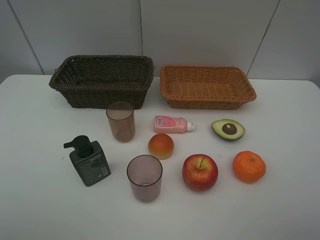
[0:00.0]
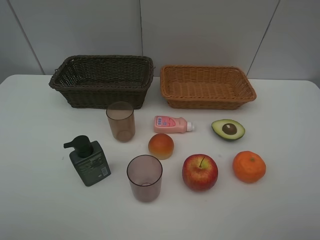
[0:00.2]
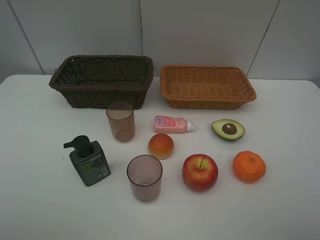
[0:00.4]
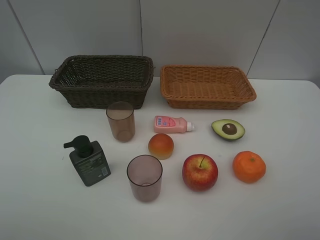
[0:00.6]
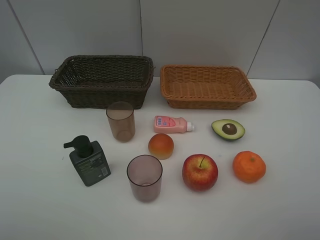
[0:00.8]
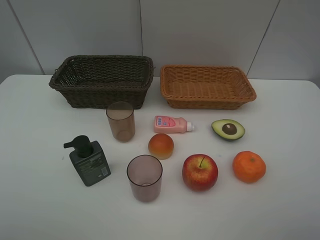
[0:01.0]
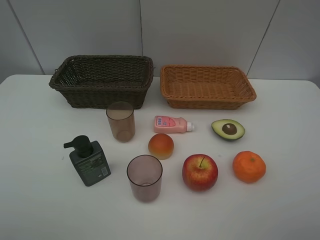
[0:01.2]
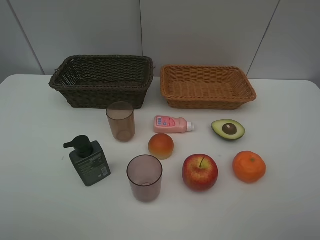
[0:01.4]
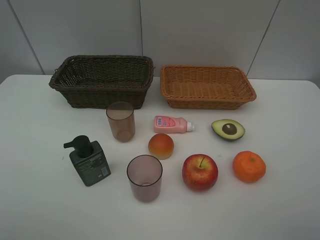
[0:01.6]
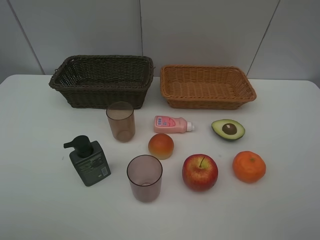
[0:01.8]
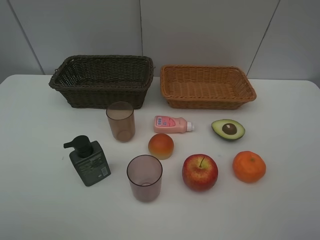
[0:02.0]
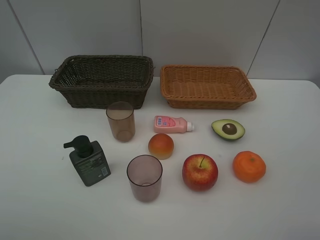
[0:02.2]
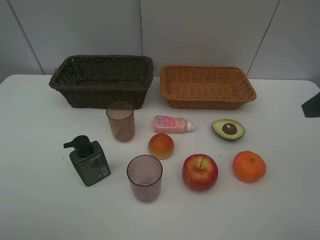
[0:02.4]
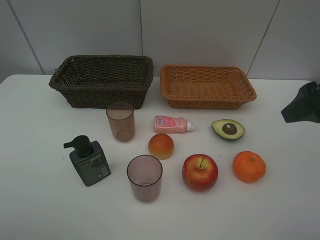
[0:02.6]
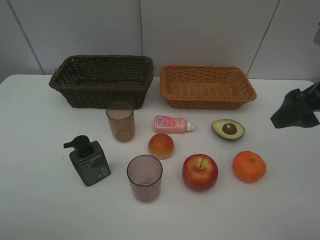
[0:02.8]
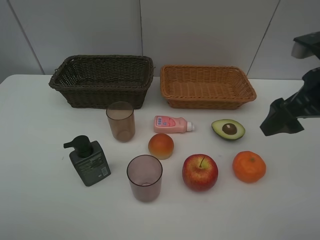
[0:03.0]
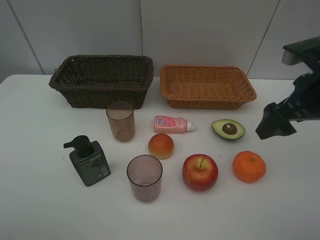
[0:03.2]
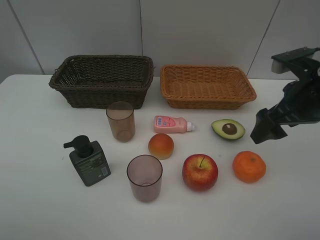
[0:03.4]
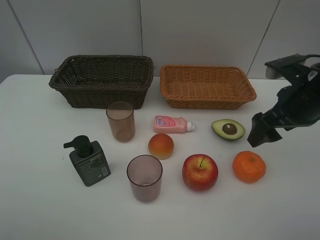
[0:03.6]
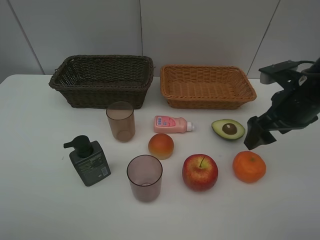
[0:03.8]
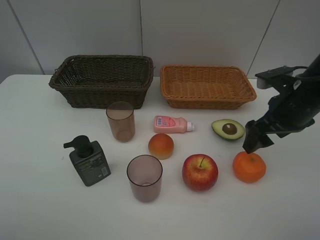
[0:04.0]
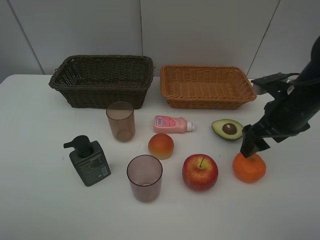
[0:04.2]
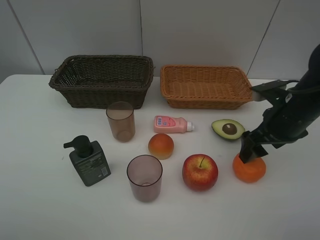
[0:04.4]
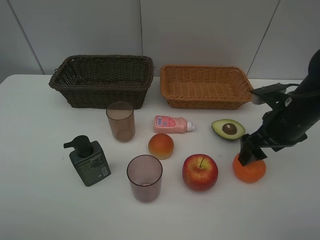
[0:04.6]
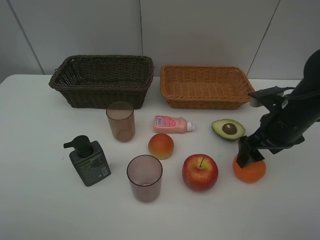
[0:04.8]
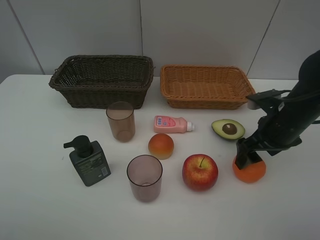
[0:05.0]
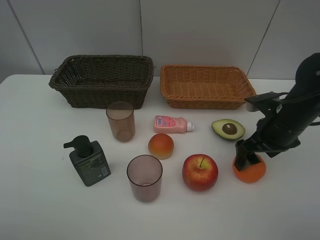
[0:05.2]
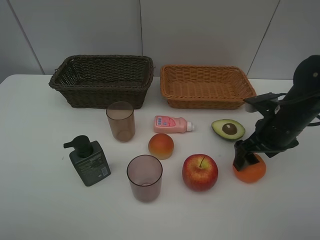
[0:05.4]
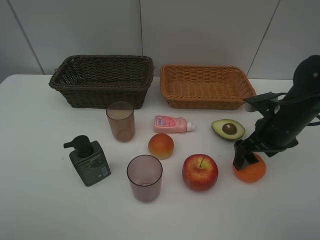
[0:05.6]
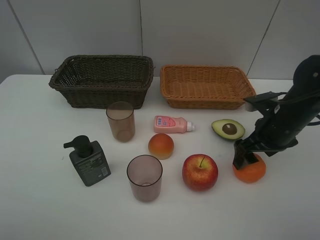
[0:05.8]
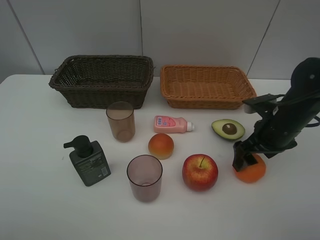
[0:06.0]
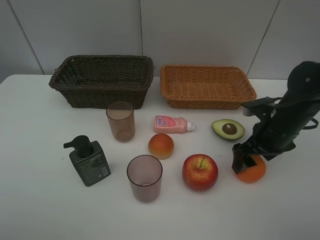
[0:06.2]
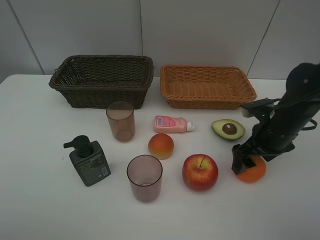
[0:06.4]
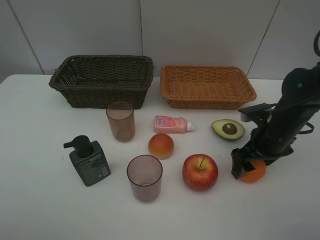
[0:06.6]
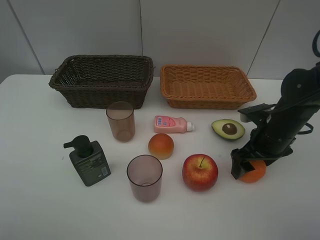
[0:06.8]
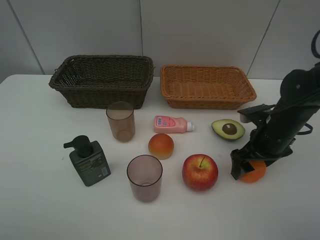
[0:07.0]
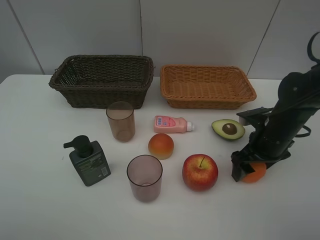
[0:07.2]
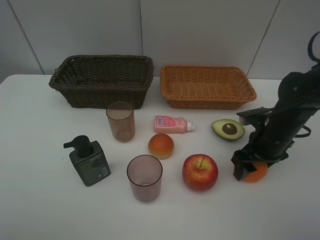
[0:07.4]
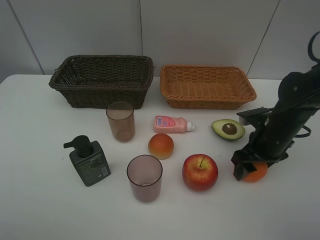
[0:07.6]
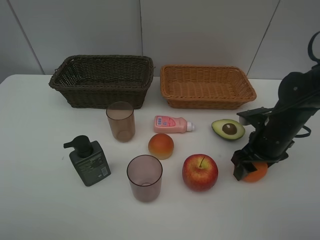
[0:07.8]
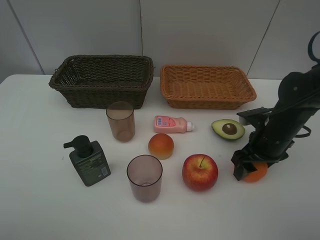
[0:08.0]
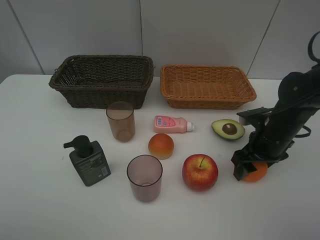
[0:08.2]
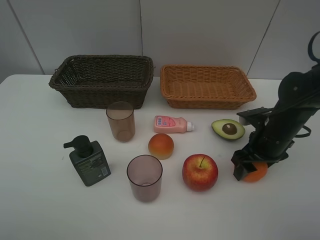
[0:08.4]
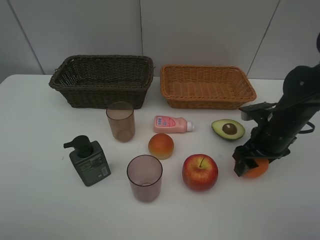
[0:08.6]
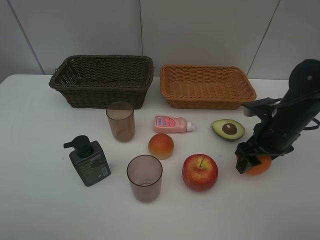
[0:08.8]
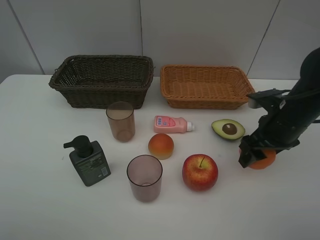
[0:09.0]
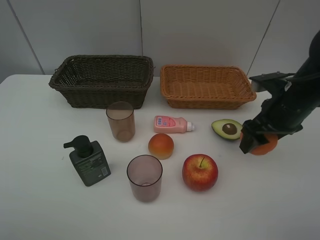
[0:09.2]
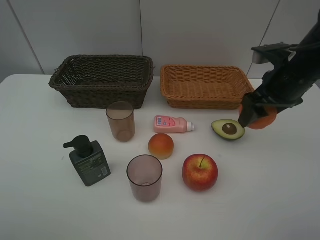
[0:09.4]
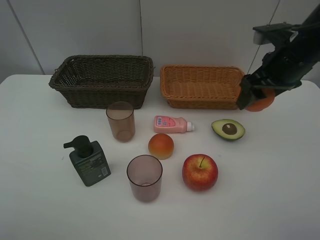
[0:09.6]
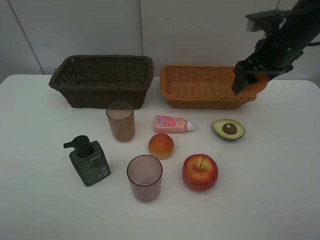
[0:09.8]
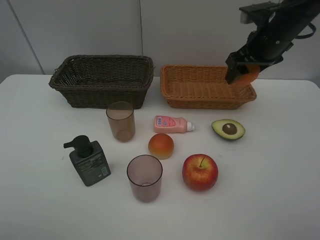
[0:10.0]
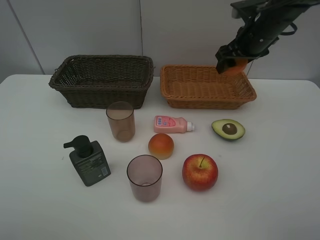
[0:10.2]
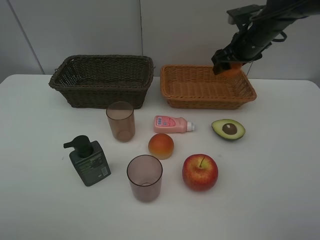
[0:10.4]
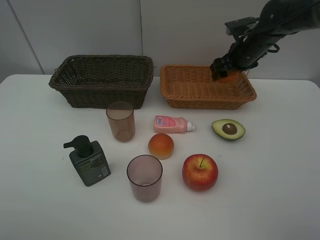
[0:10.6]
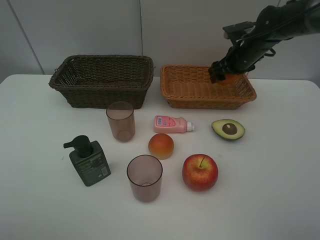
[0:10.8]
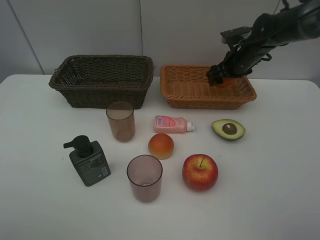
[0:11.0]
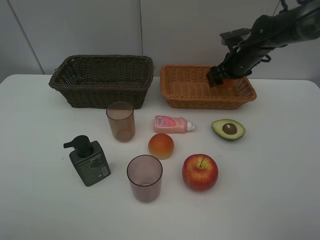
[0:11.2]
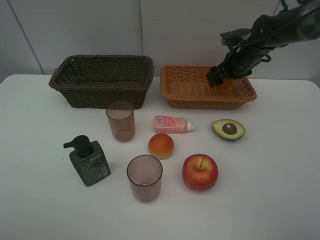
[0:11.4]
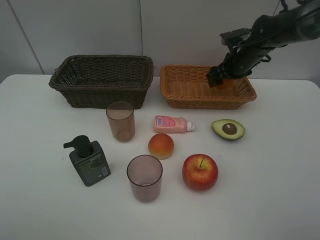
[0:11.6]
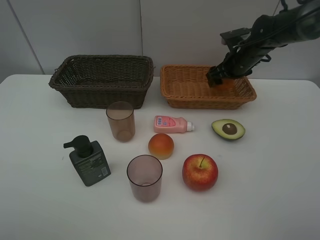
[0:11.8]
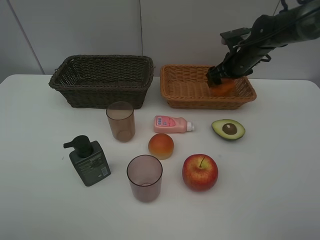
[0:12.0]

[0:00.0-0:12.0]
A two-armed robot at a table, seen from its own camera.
Task of the whole recording: Place multiple objects separately in different baskets.
Step, 0:00.0 to 0:09.0: Pick up the orange with right gripper.
0:01.6 to 0:03.0: The right gripper shifts some 20 cm forward.
0:03.0 to 0:04.4: The right gripper moves downward, roughly 10 cm.
0:04.4 to 0:06.0: The grippers make only small movements.
0:06.0 to 0:07.6: The right gripper closes.
0:07.6 to 0:09.0: The grippers move only a little.
0:09.0 to 0:10.4: The right gripper travels forward and upward by about 20 cm.
0:10.4 to 0:12.0: The right gripper travels downward by about 5 cm.

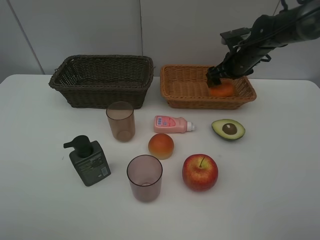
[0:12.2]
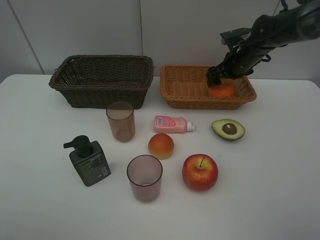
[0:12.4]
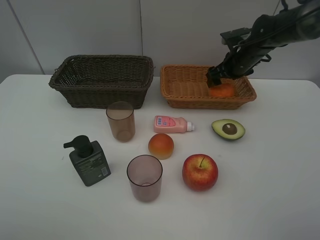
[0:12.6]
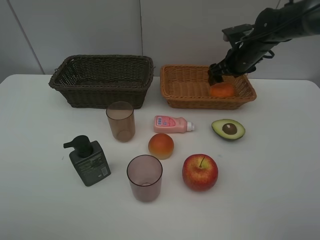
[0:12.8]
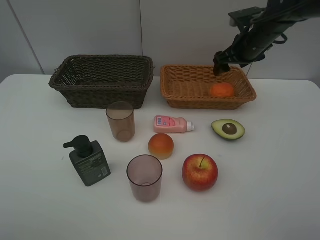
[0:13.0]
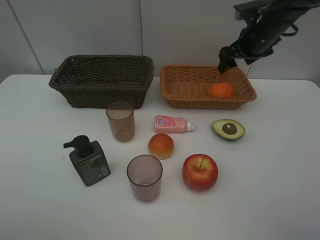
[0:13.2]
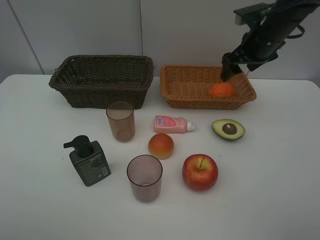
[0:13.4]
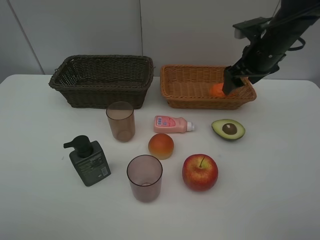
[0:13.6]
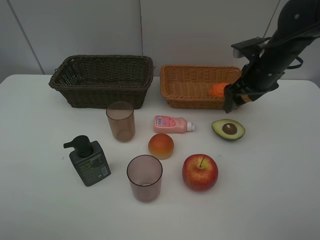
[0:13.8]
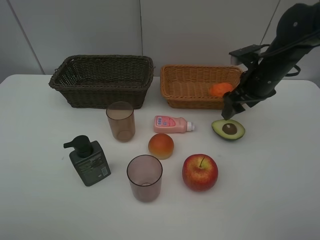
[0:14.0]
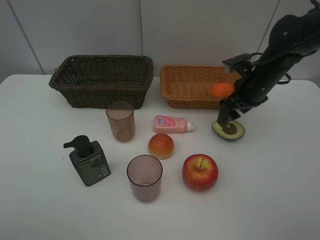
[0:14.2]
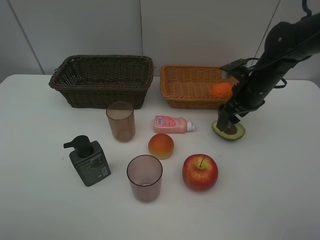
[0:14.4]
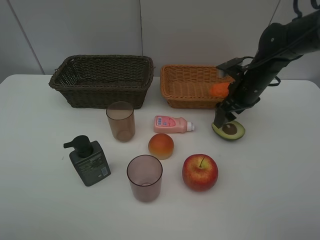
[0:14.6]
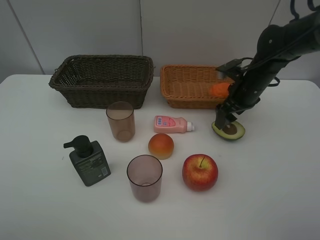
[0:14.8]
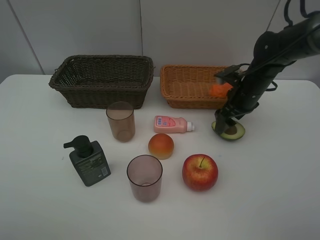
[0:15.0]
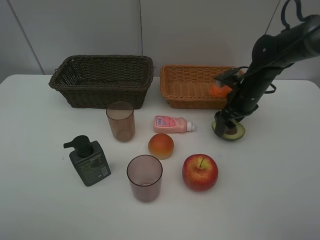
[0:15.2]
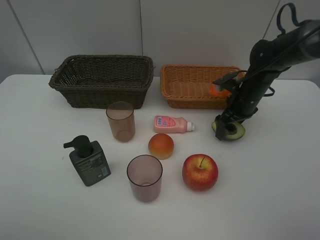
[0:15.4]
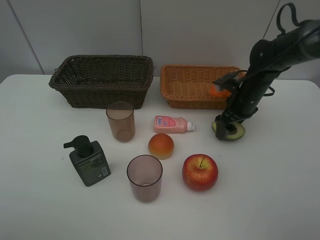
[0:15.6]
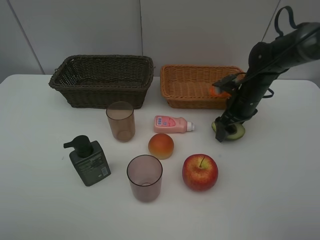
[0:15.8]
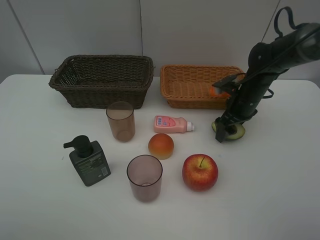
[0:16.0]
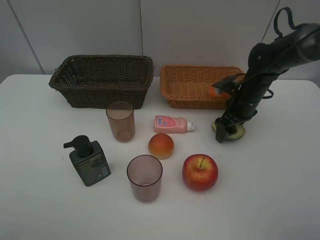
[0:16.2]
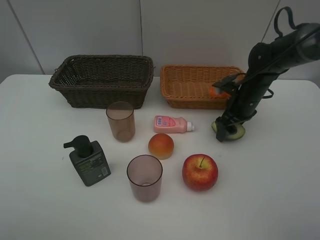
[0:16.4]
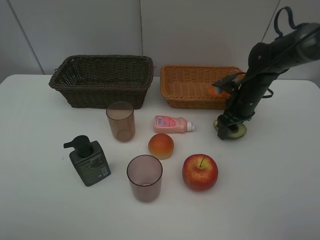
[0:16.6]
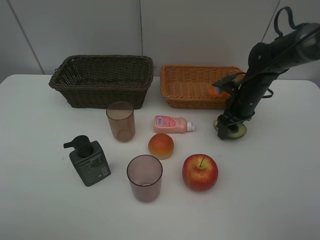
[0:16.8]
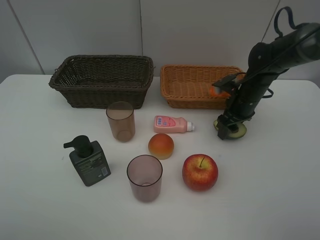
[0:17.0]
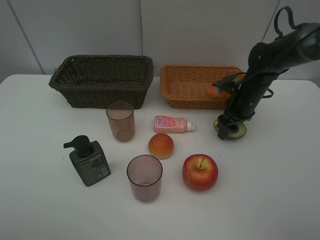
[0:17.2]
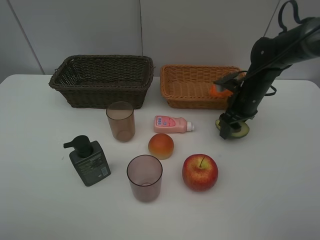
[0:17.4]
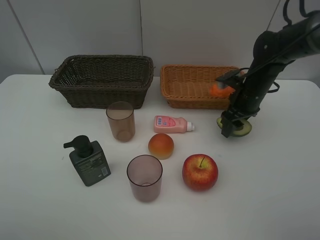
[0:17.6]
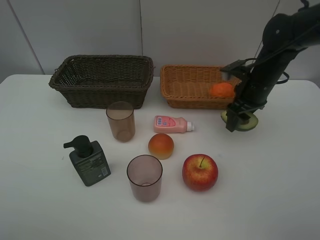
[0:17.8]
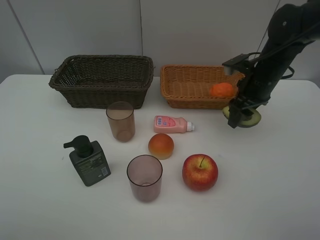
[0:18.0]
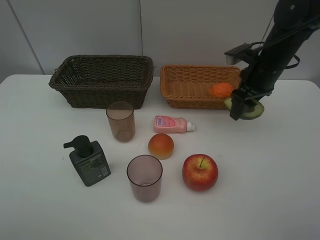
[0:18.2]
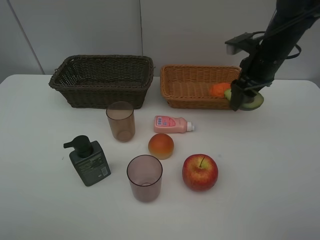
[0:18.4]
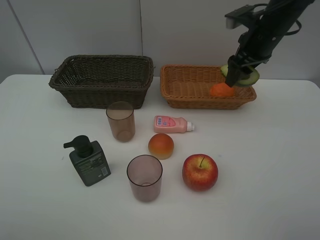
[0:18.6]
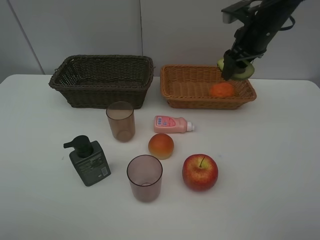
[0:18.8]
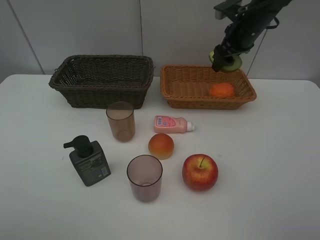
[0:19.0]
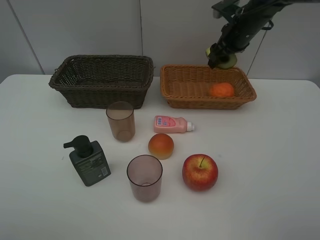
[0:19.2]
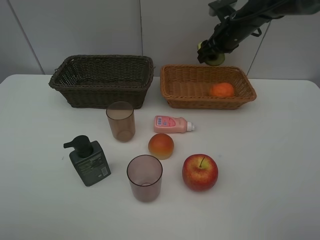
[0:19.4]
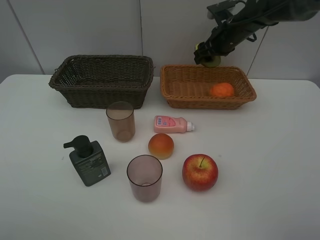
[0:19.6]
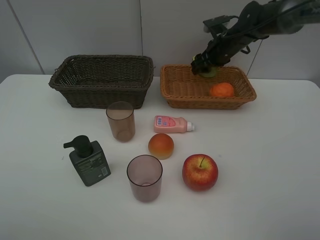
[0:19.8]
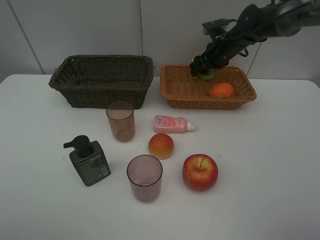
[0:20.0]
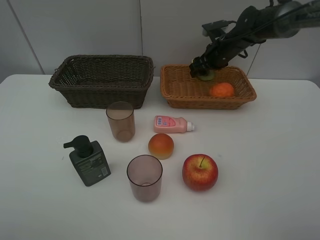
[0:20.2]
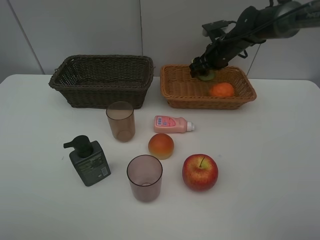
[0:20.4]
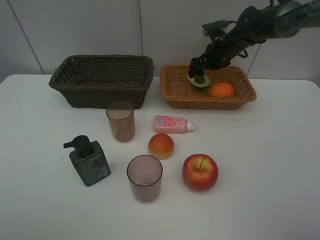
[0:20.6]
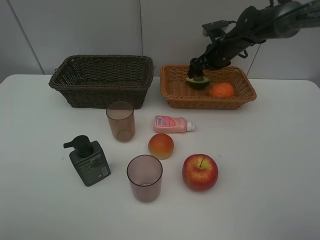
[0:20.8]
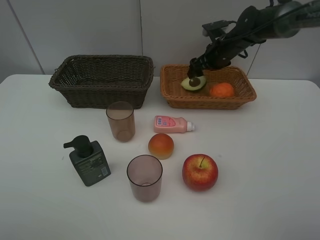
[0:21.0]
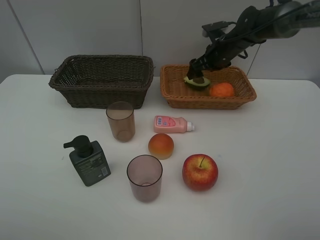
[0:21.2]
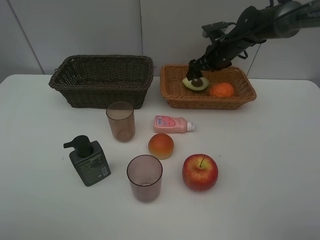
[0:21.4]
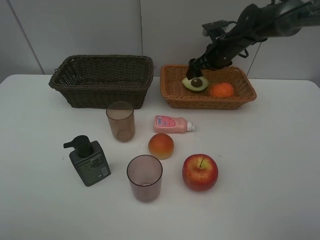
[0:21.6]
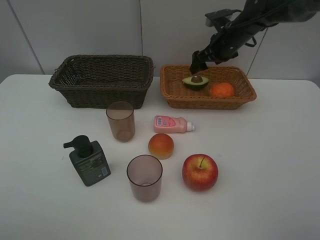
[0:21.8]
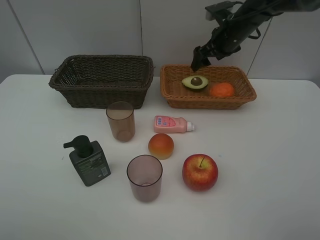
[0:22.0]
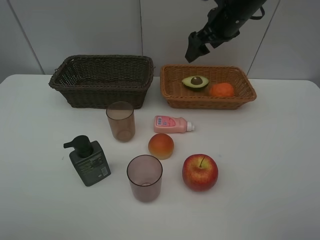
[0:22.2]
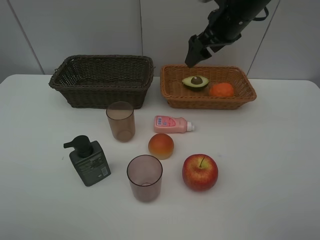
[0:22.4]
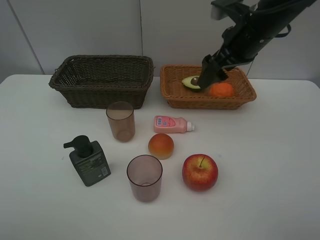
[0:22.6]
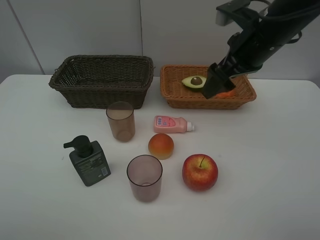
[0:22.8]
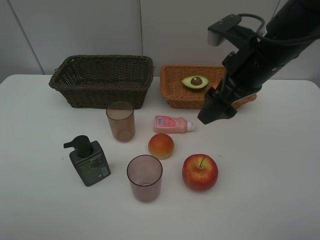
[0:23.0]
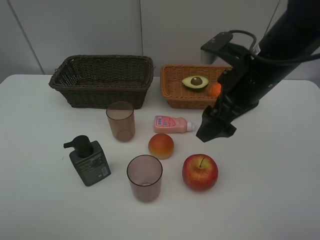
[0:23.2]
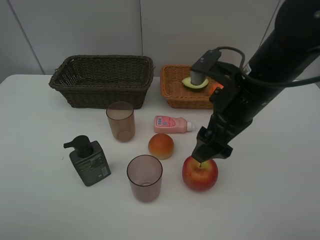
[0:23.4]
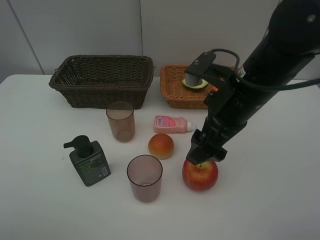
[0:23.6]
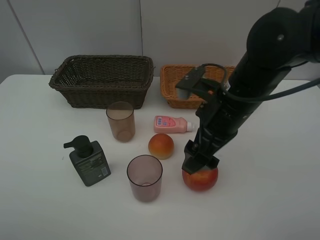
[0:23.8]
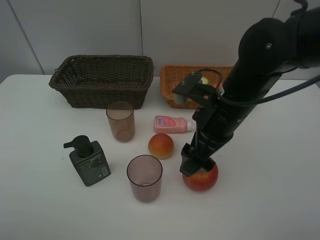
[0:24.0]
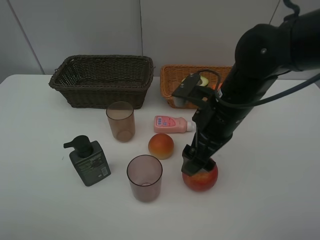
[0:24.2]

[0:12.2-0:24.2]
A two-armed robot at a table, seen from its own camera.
Task of the whole recording: Place multiple objects separately in different baskets.
Step, 0:12.4 to 0:17.8: Pick up the avocado with right gripper.
Step, 0:18.0 to 0:21.2: Place the avocado in the light basket with right gripper.
0:12.2 to 0:13.8: The right gripper heads backward, covering approximately 10 cm.
0:13.8 to 0:15.2: The right gripper travels downward by some 5 cm.
0:15.2 to 0:16.6: The right gripper closes.
0:16.6 to 0:18.2: The right gripper moves upward, approximately 10 cm.
0:18.2 to 0:19.8: The right gripper heads forward, covering some 15 cm.
0:19.8 to 0:21.2: The right gripper opens.
0:21.2 to 0:22.6: The right gripper heads backward and upward, covering about 20 cm.
0:22.6 to 0:24.2: The right gripper goes about 15 cm backward, downward and to the left.
